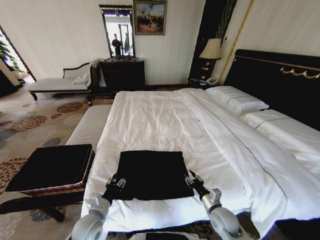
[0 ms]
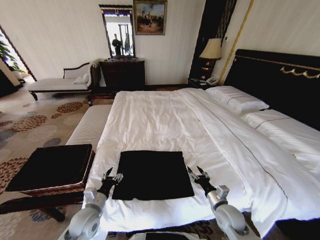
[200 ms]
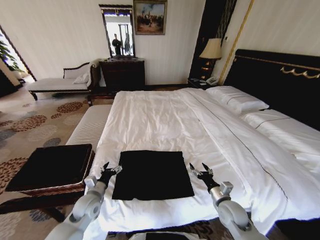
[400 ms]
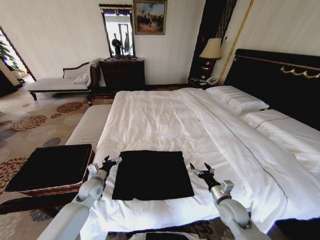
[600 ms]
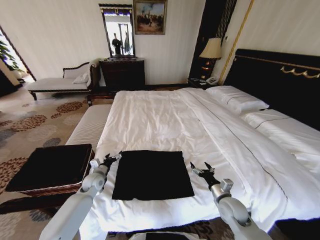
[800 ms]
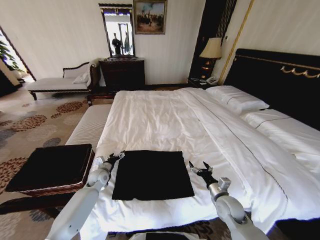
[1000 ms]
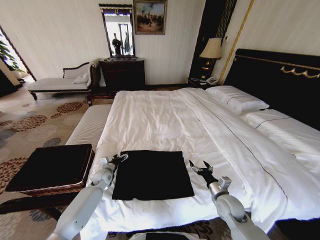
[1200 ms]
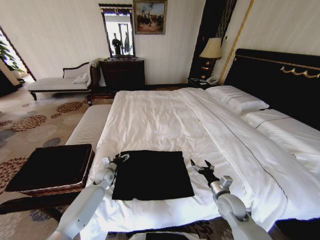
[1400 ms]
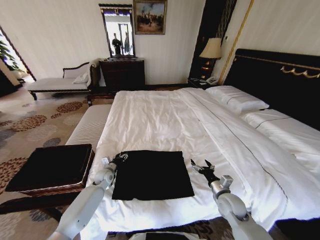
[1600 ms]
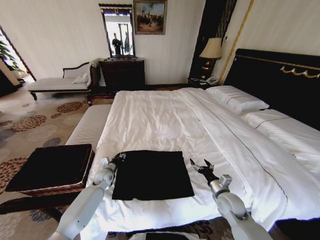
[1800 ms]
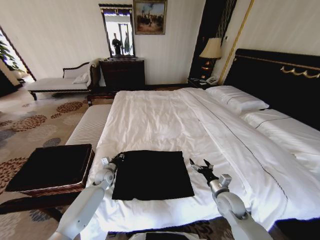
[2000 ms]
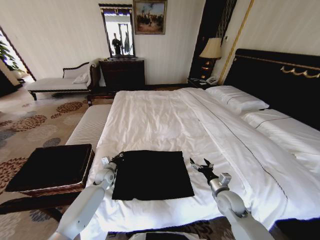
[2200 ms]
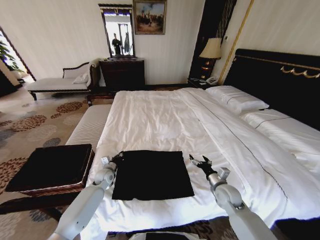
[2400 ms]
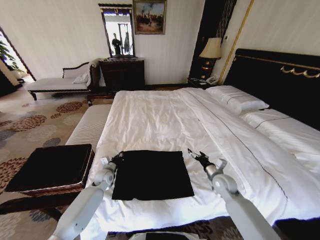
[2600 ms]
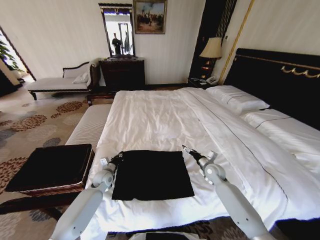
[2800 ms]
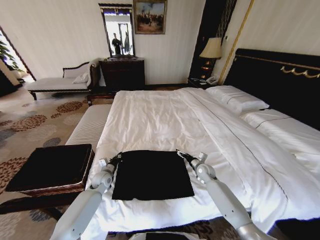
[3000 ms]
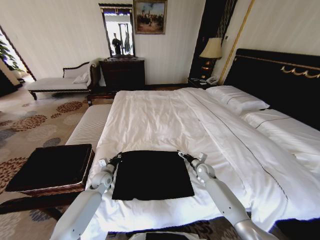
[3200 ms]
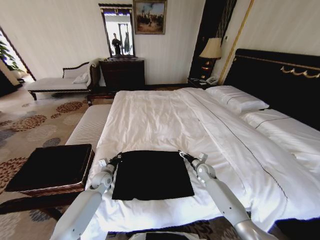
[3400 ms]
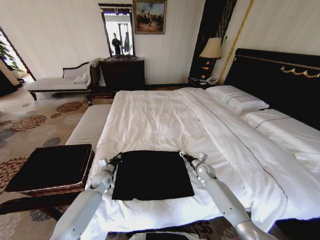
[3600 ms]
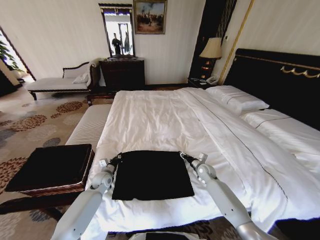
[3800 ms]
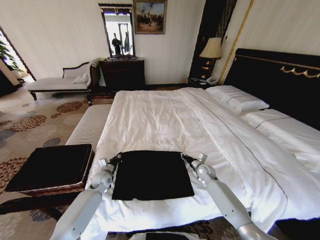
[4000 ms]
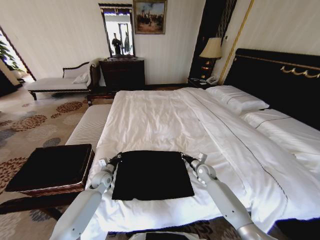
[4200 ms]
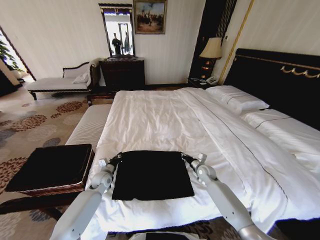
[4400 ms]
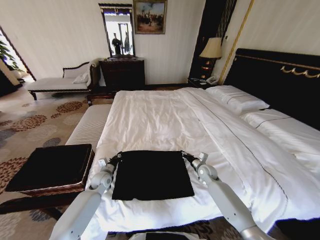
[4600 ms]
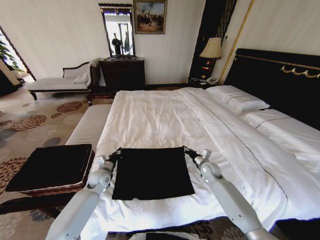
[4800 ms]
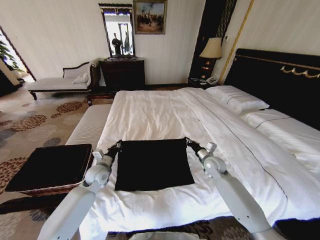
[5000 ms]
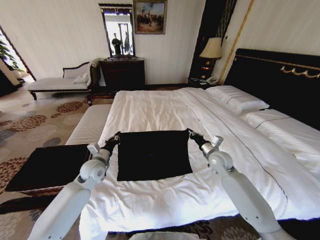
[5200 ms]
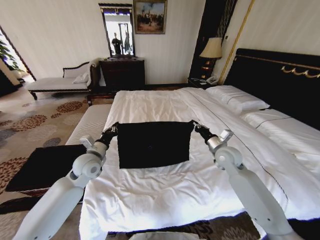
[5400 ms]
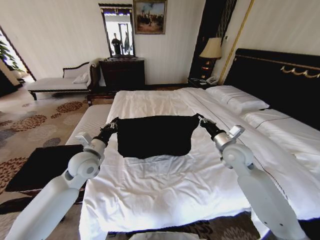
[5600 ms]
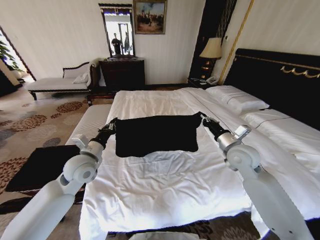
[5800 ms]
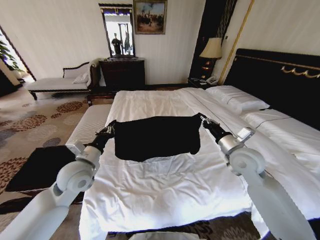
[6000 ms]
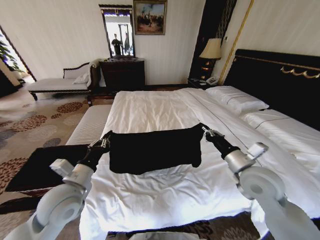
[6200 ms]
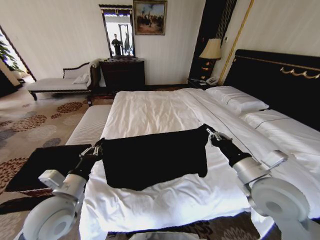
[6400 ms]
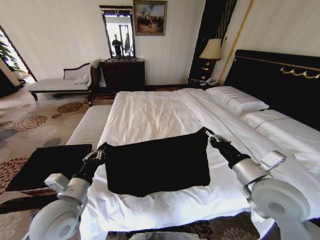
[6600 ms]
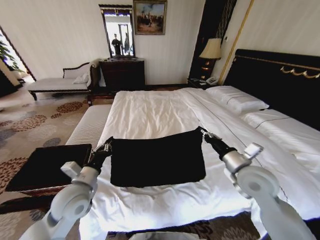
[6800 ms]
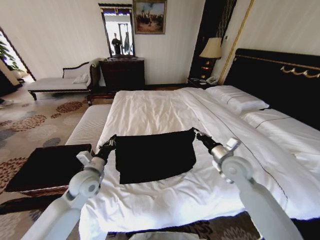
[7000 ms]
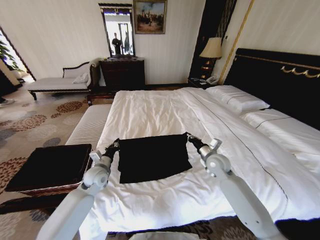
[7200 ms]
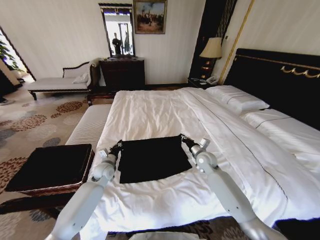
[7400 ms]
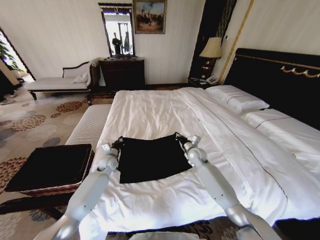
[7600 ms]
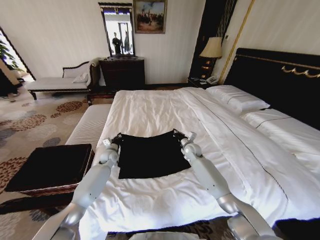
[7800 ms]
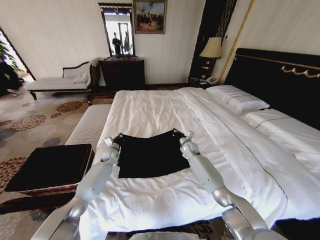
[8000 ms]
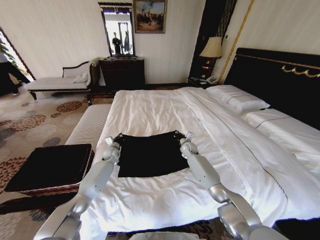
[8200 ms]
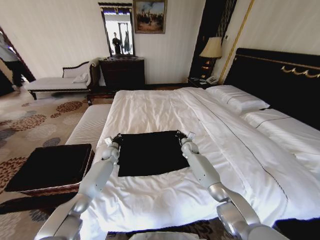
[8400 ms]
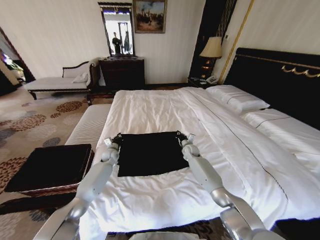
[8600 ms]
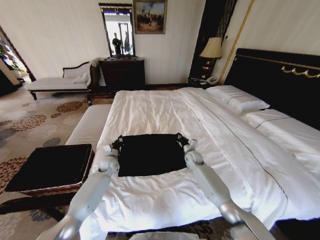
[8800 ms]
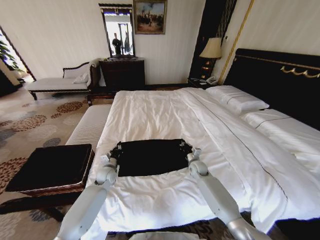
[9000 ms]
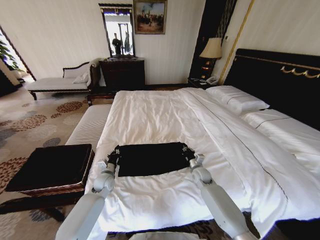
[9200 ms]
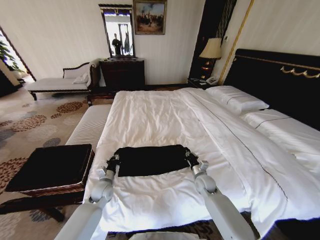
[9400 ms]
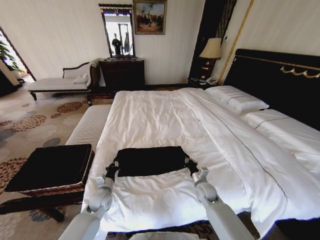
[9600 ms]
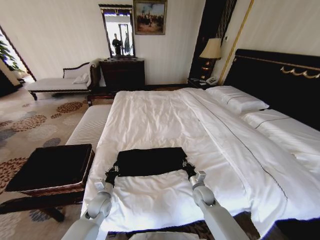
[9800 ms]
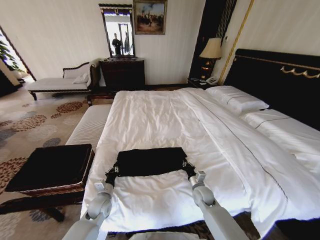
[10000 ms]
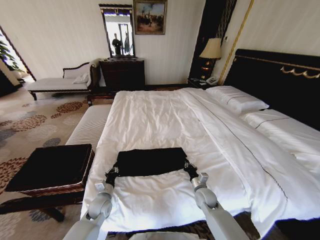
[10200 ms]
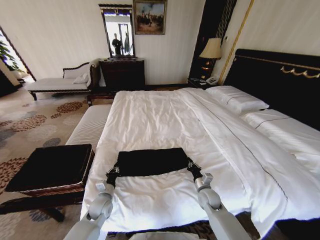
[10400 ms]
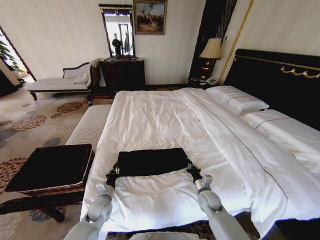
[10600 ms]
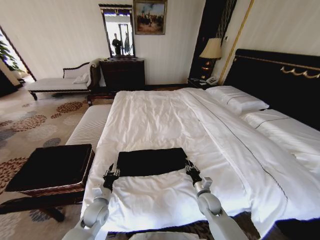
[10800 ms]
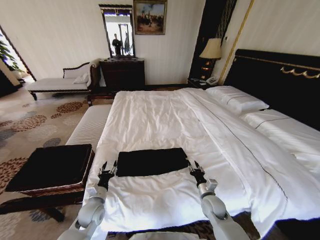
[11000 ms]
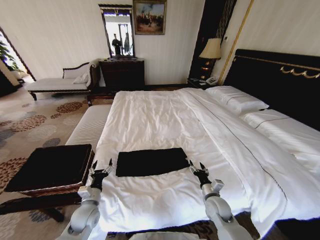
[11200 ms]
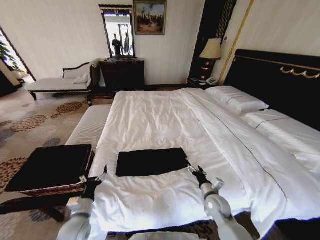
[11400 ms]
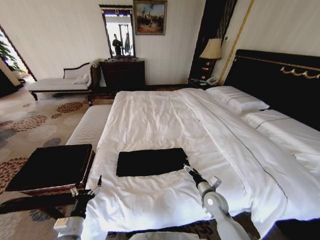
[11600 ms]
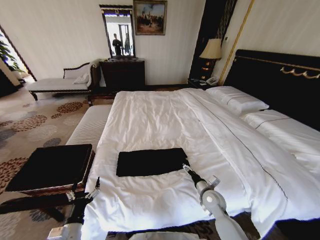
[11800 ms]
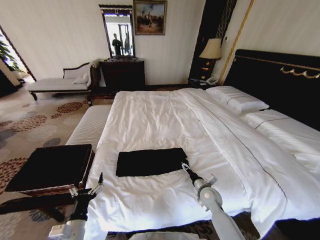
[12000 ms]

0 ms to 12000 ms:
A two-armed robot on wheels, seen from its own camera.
Task of the whole recording: Fold the clothes on the bed and place them into the basket.
0 ms to 1600 ms: The left gripper heads forward, covering roughly 20 cm; the right gripper moves approximately 5 cm, and opens up.
1600 ms to 3000 ms: The left gripper closes its fingers. Meanwhile the right gripper is displaced forward by roughly 15 cm.
4400 ms to 6000 ms: Both grippers move upward, some 25 cm.
6000 ms to 7600 ms: The right gripper heads downward, forward and to the left, covering roughly 25 cm. Meanwhile the left gripper travels downward and forward by roughly 25 cm.
7600 ms to 9000 ms: The left gripper shifts approximately 5 cm backward, while the right gripper shifts some 10 cm downward, and goes forward and returns, approximately 10 cm each way.
9000 ms to 10400 ms: The grippers both shift backward by about 15 cm.
10400 ms to 12000 ms: The right gripper opens; the left gripper heads backward and upward, covering roughly 20 cm, and opens.

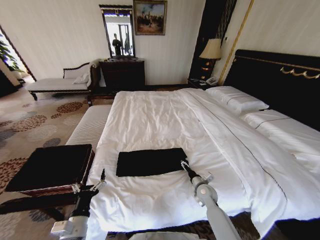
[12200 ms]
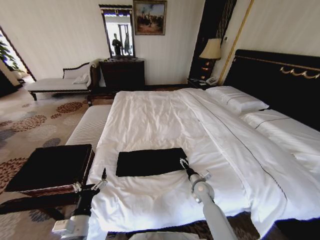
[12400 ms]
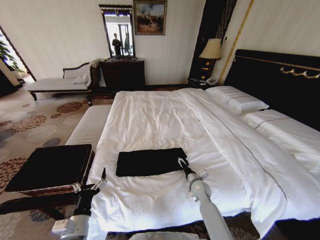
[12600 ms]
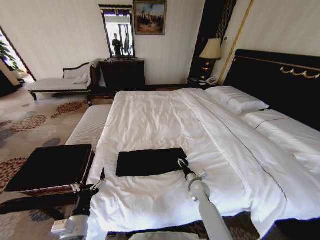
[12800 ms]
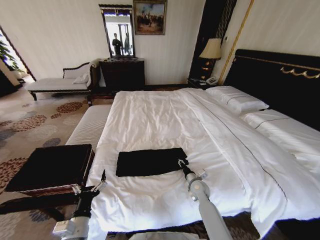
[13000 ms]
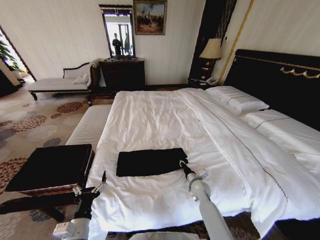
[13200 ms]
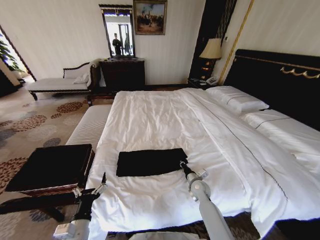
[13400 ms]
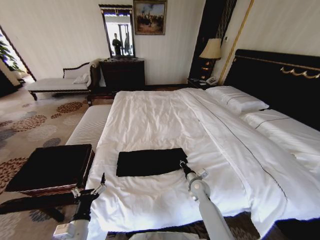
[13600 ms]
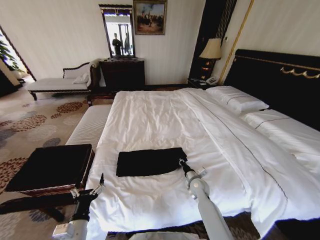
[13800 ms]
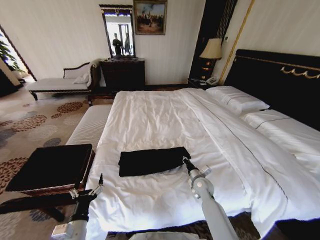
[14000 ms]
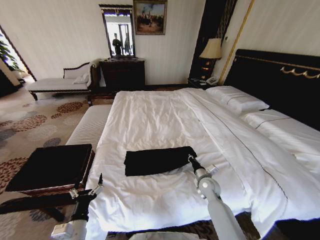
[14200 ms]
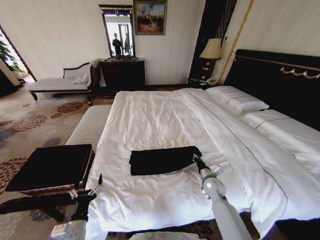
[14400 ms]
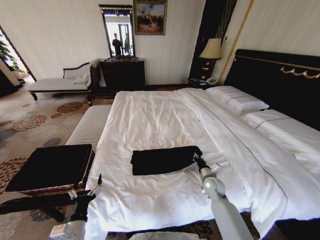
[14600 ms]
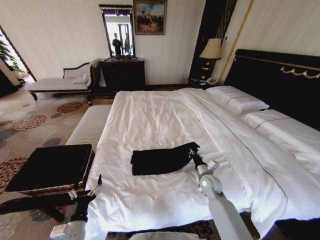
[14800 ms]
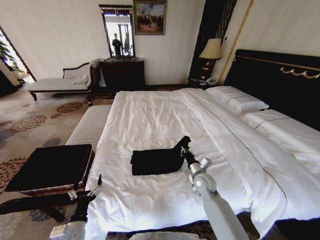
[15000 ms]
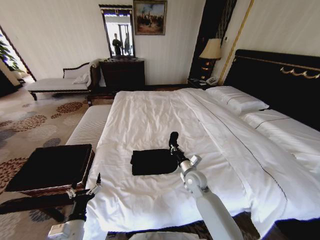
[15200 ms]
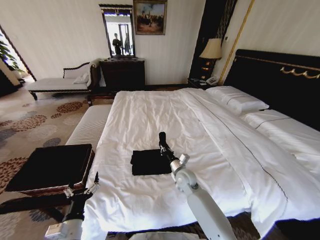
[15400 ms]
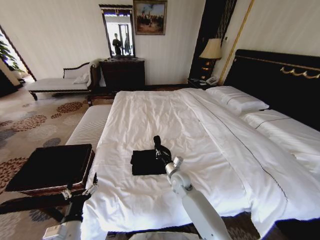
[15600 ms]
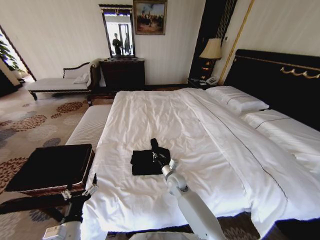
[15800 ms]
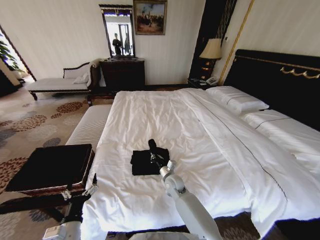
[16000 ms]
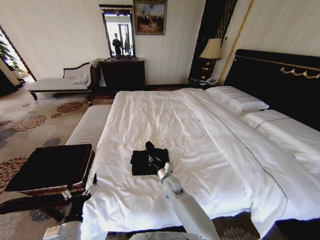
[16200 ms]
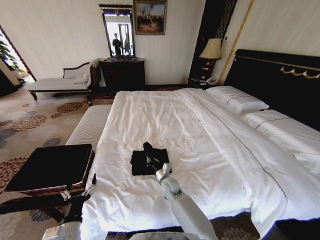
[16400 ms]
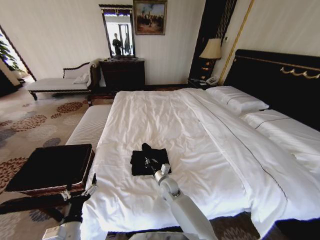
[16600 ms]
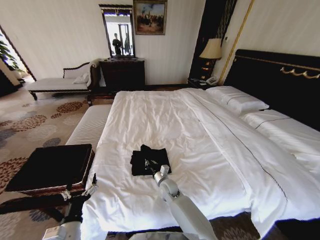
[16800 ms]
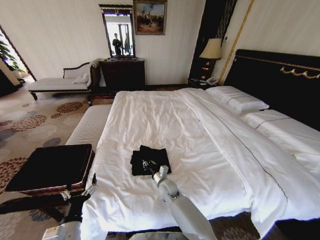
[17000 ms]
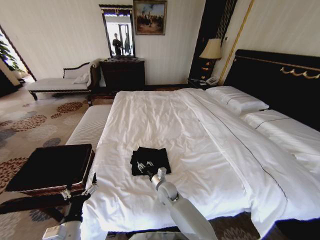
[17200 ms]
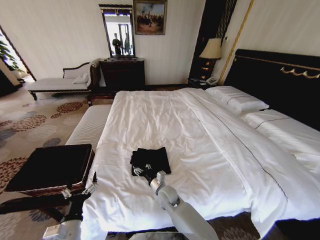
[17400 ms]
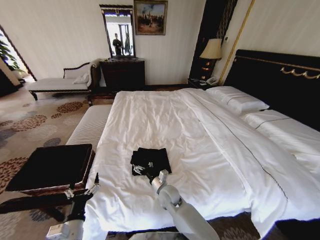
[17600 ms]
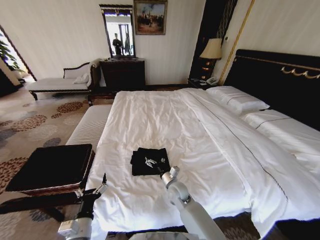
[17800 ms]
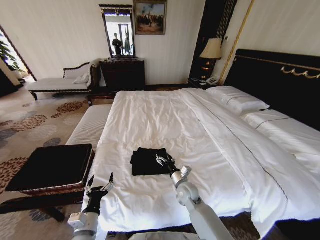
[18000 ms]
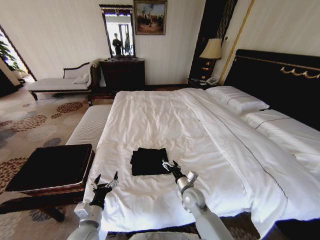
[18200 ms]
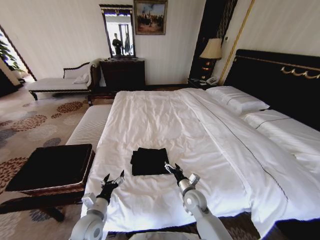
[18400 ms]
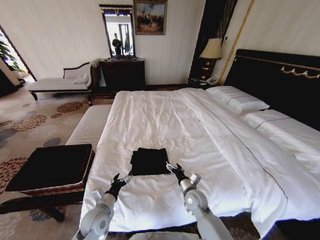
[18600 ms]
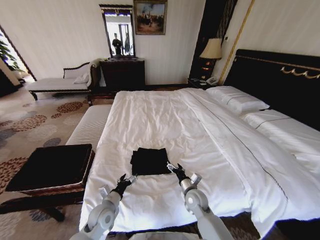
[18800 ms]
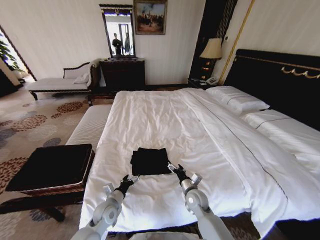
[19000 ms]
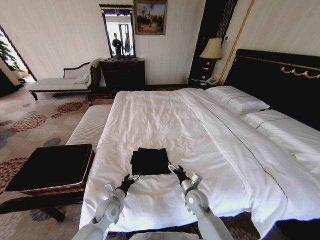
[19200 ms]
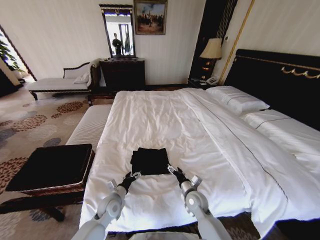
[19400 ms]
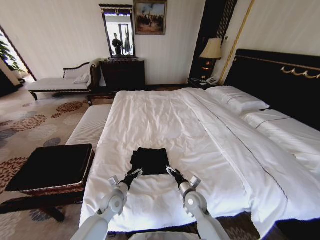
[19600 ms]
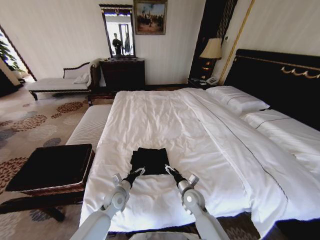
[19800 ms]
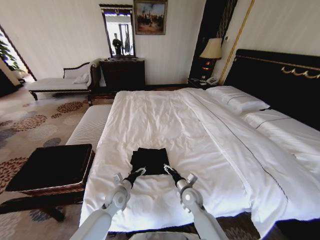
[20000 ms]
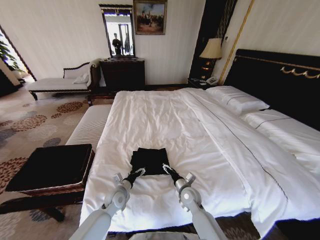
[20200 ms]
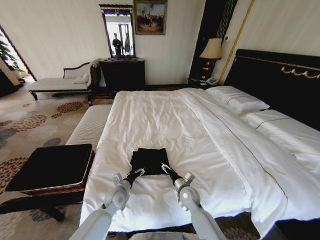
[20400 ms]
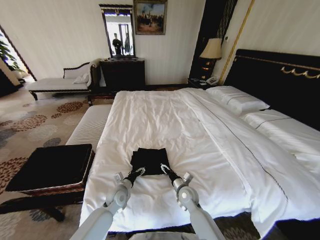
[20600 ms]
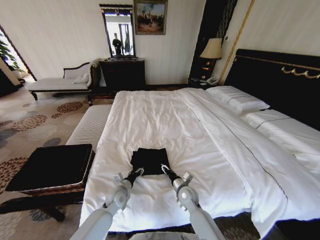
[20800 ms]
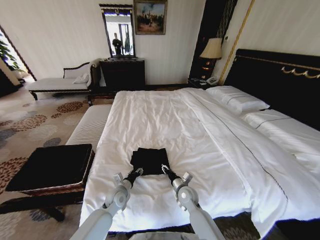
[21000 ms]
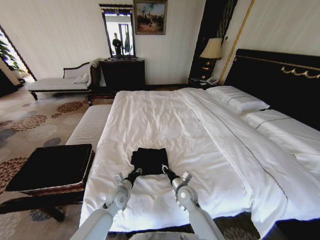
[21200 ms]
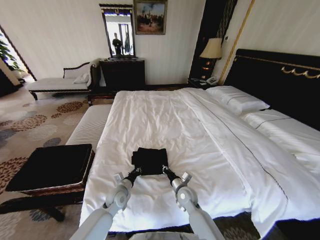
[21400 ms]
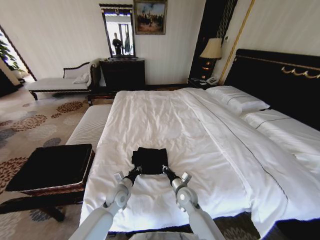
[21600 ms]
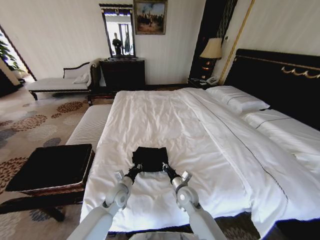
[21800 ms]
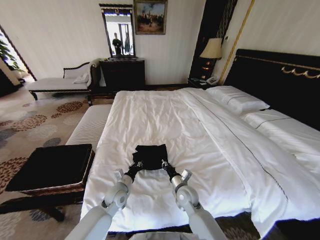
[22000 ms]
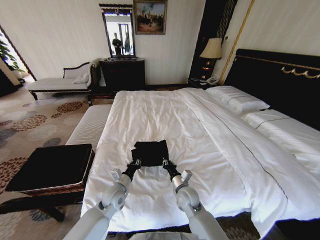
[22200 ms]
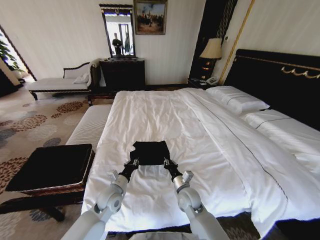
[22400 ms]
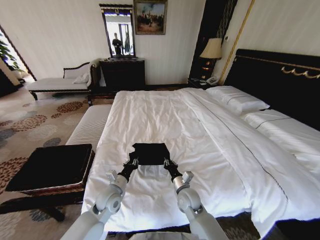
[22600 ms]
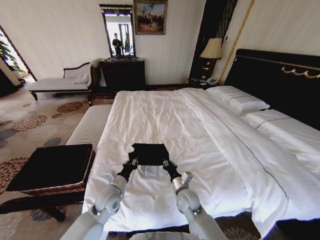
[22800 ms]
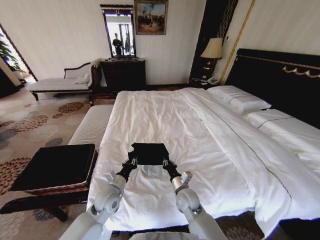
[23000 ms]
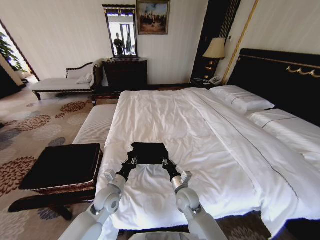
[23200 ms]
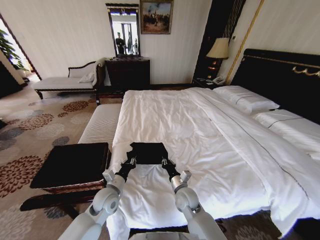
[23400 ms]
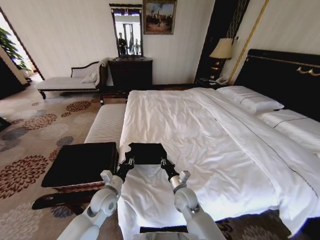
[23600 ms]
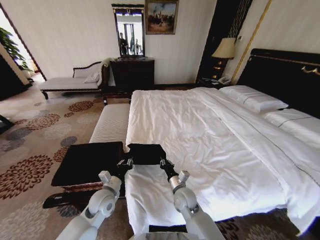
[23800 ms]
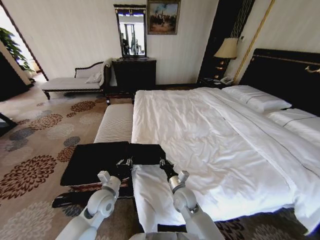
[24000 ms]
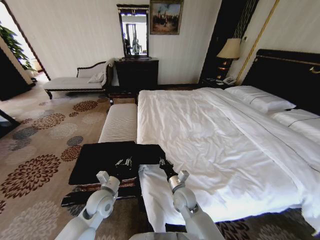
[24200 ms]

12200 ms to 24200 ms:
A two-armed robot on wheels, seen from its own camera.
Task of the whole recording: Fold the clothes on the bed and place them into the basket.
12200 ms to 13800 ms: The right gripper closes its fingers.
13800 ms to 15200 ms: The right gripper goes roughly 10 cm upward and to the left.
15200 ms to 16600 ms: The right gripper heads to the left and downward, covering approximately 15 cm.
16600 ms to 18200 ms: The left gripper travels forward by some 5 cm; the right gripper moves to the right and backward, about 10 cm, and opens its fingers.
18200 ms to 19800 ms: The left gripper goes approximately 15 cm forward and to the right.
19800 ms to 21200 ms: The left gripper closes. Meanwhile the right gripper closes its fingers.
21200 ms to 22600 ms: The left gripper travels upward by roughly 5 cm.
